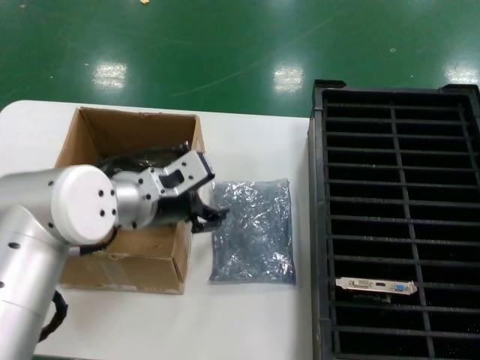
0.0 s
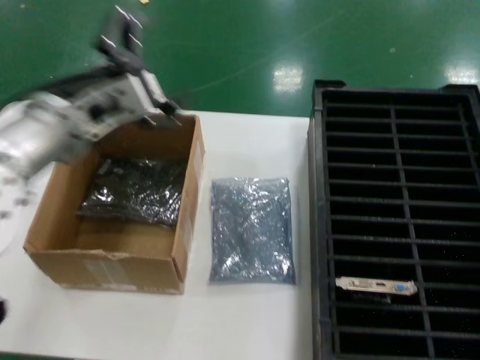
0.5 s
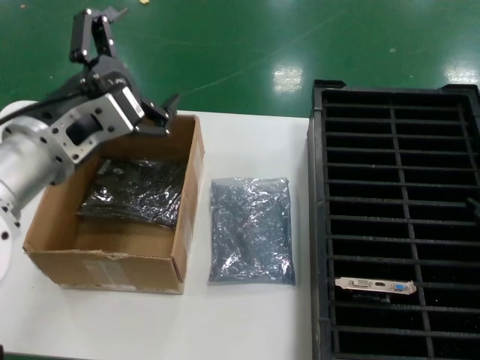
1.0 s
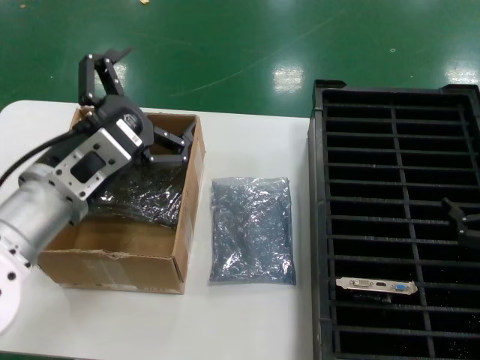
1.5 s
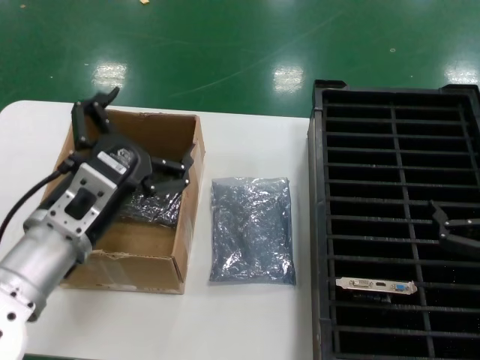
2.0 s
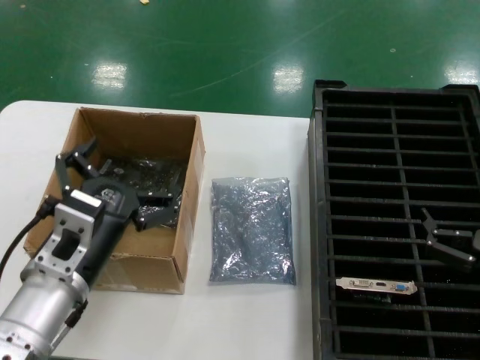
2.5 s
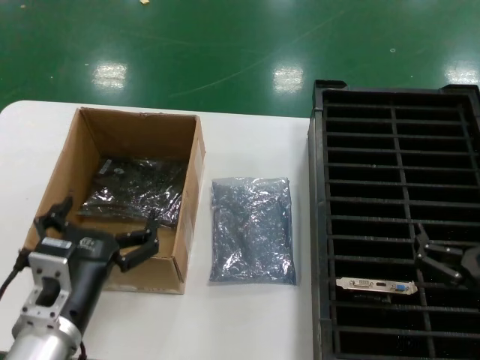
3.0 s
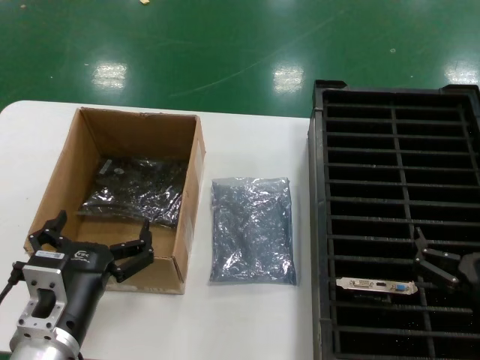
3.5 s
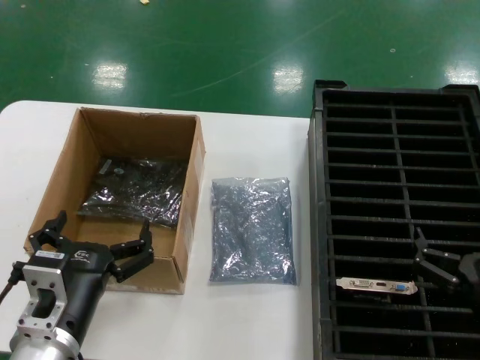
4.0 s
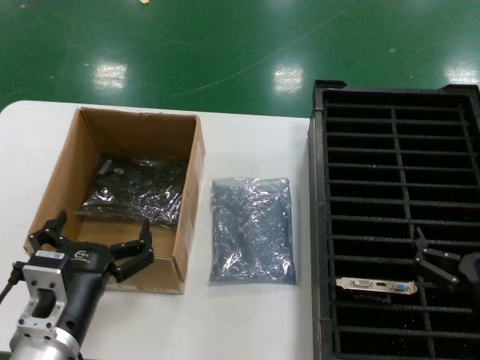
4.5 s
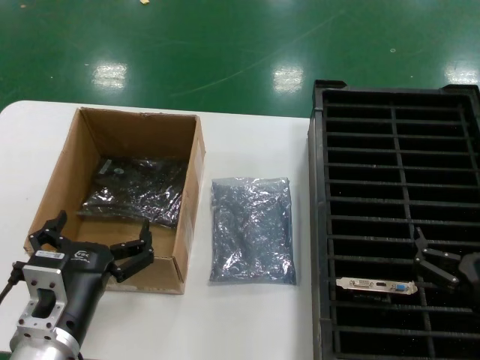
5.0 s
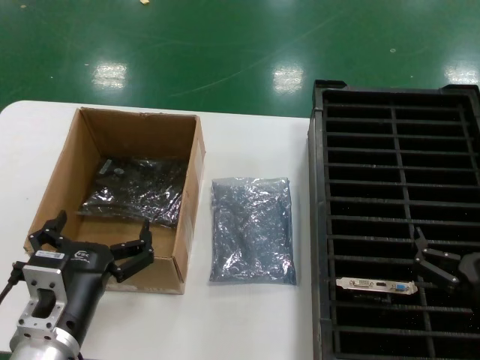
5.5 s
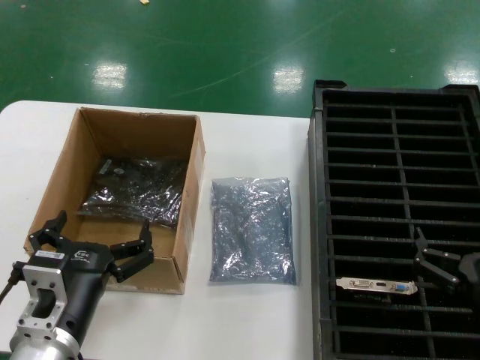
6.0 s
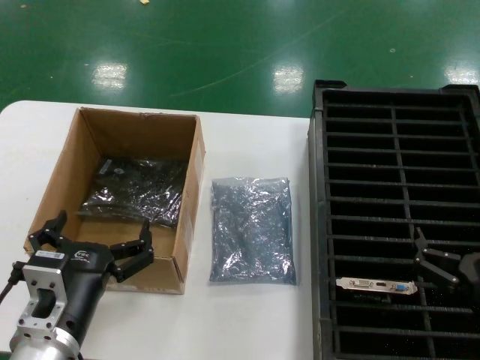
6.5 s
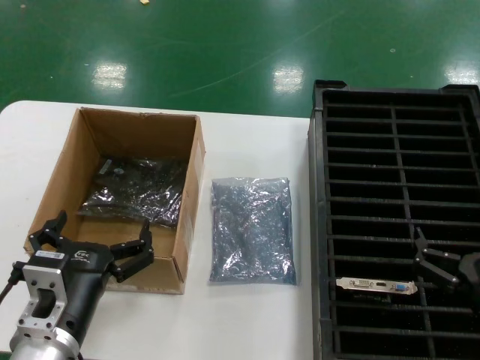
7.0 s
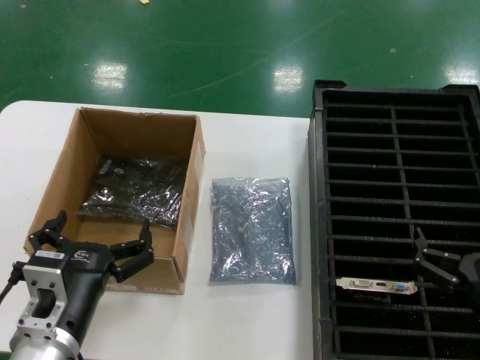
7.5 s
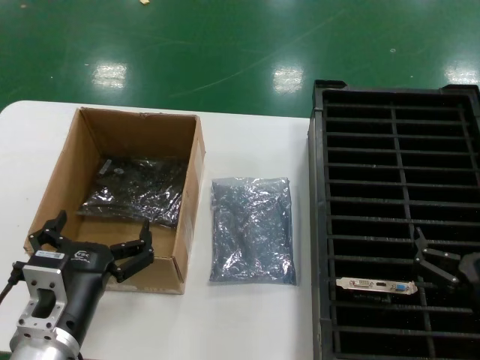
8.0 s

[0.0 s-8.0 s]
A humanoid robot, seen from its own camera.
Task of the whole recording: take out graphics card from box remove packaging put into black container.
0.0 to 2.0 s: The right hand goes about 10 cm downward and to the left, while the left hand goes roughly 10 cm backward, and goes upward and returns, some 10 cm each way.
2.0 to 4.0 s: The left hand is displaced downward and backward by approximately 10 cm, while the right hand goes some 10 cm downward and to the left.
4.0 to 8.0 s: The two hands keep their place.
